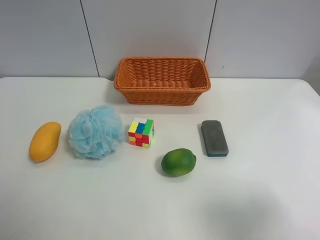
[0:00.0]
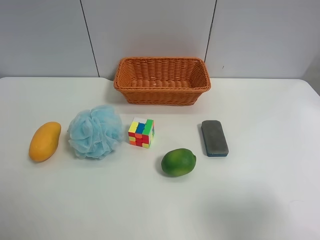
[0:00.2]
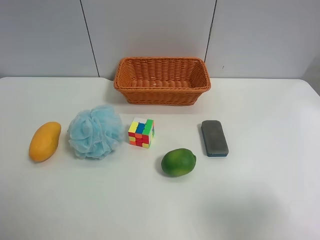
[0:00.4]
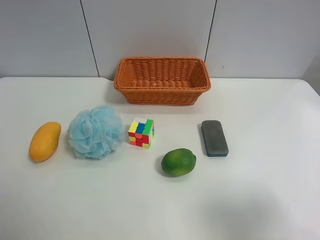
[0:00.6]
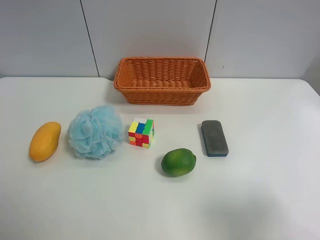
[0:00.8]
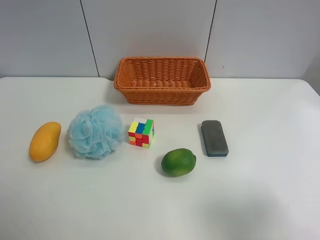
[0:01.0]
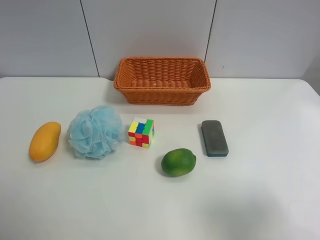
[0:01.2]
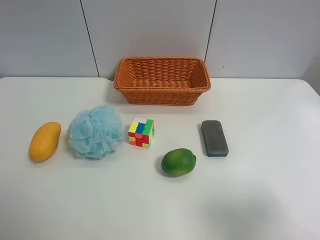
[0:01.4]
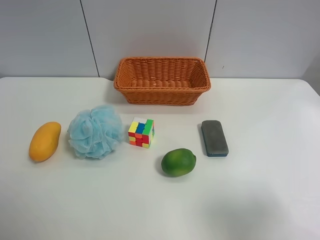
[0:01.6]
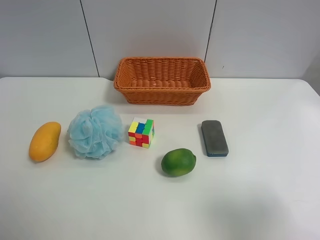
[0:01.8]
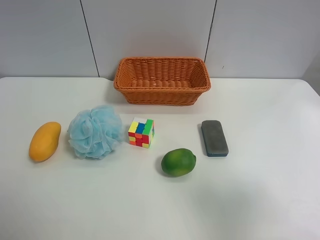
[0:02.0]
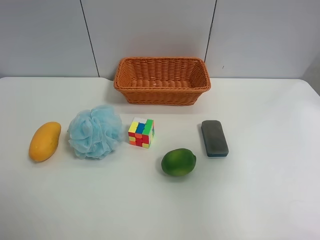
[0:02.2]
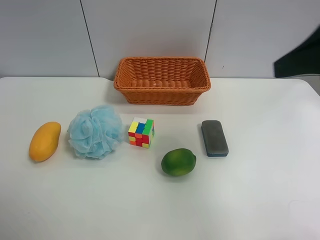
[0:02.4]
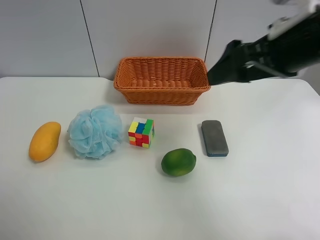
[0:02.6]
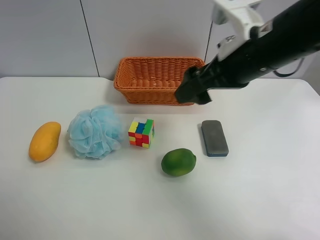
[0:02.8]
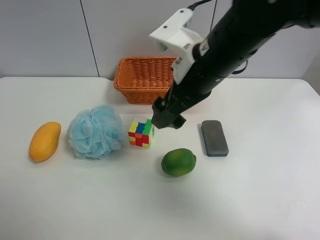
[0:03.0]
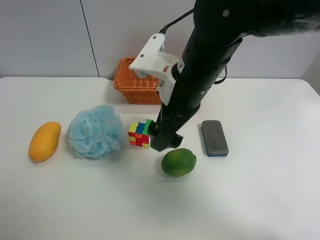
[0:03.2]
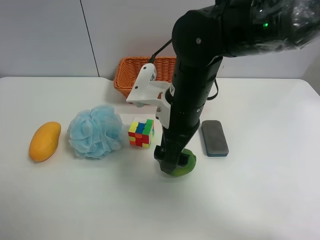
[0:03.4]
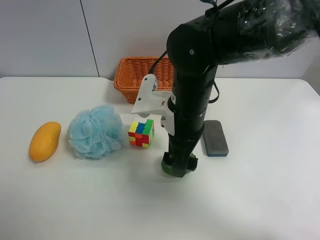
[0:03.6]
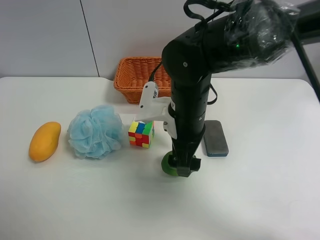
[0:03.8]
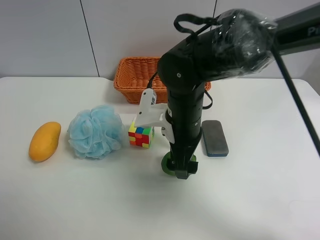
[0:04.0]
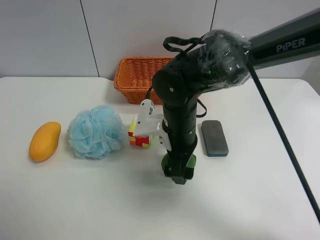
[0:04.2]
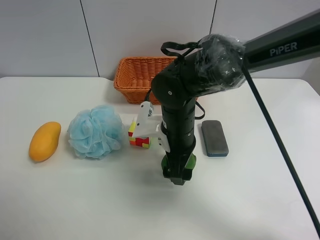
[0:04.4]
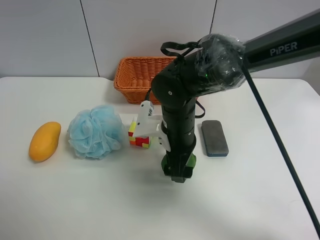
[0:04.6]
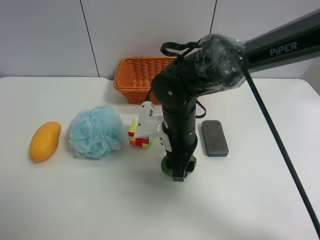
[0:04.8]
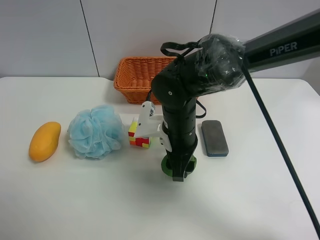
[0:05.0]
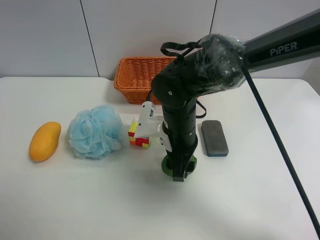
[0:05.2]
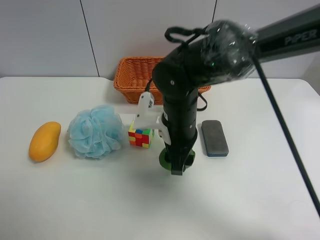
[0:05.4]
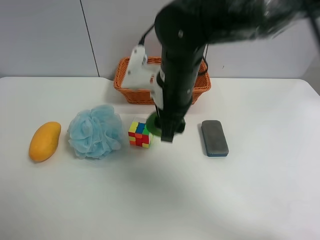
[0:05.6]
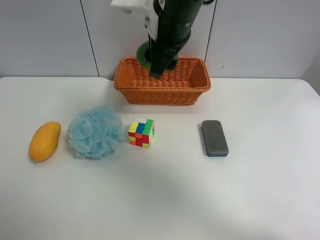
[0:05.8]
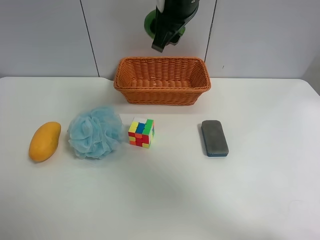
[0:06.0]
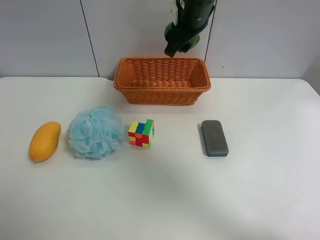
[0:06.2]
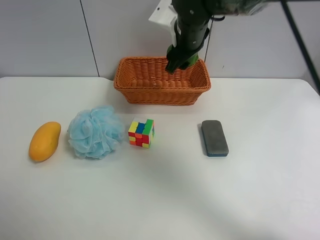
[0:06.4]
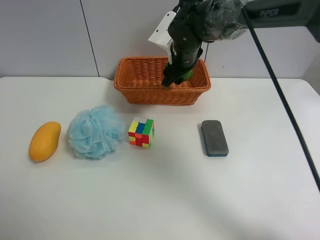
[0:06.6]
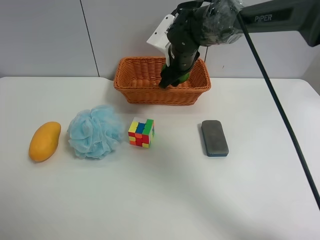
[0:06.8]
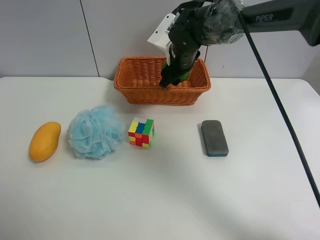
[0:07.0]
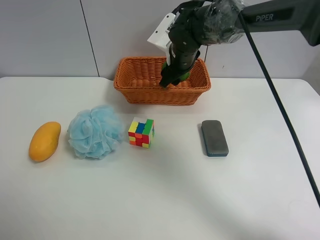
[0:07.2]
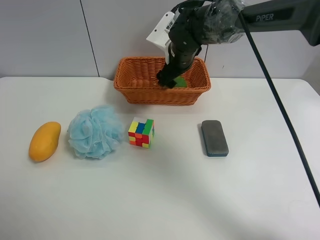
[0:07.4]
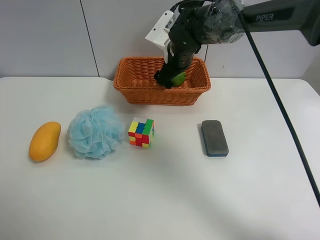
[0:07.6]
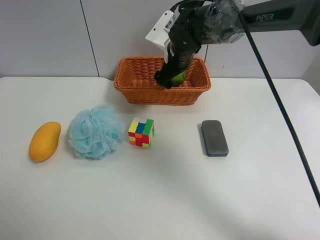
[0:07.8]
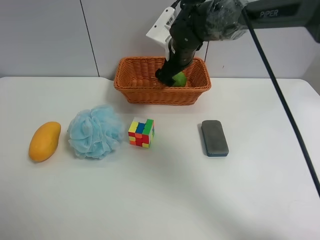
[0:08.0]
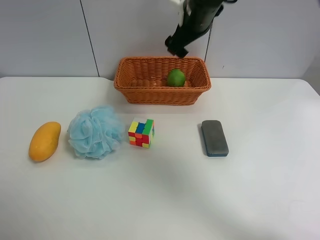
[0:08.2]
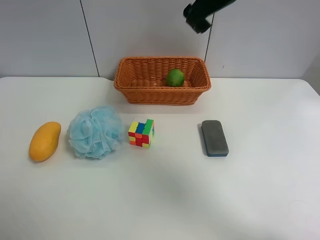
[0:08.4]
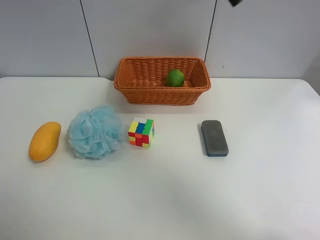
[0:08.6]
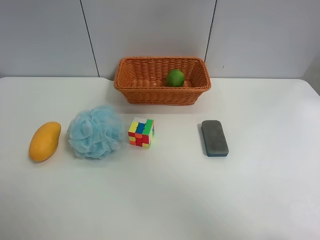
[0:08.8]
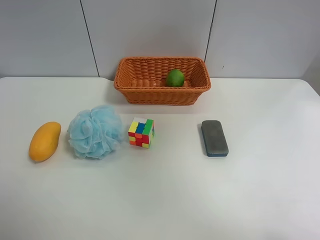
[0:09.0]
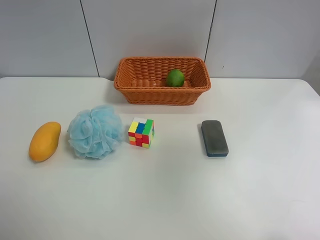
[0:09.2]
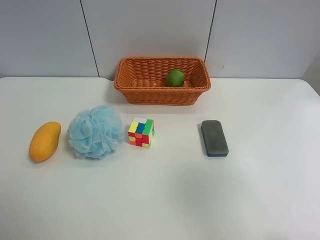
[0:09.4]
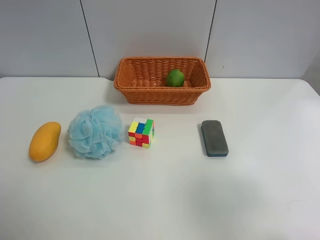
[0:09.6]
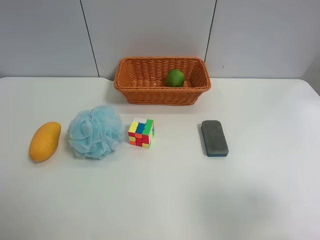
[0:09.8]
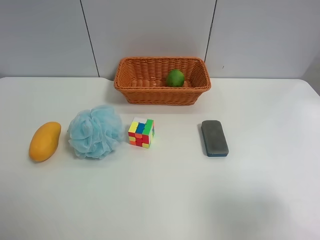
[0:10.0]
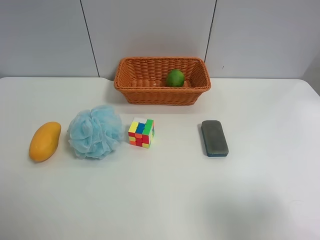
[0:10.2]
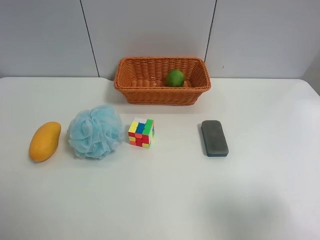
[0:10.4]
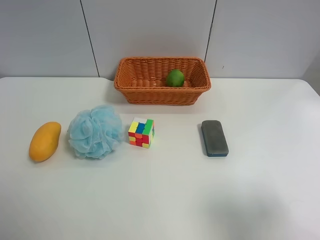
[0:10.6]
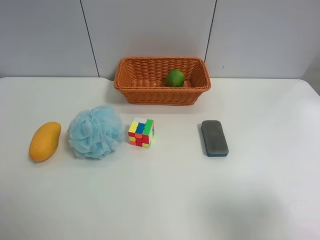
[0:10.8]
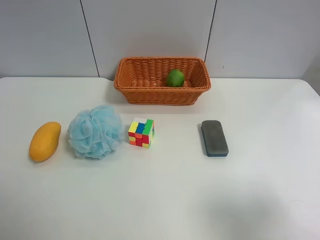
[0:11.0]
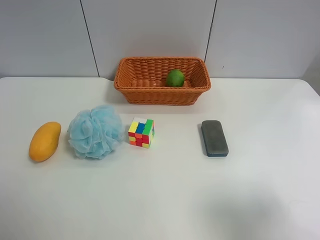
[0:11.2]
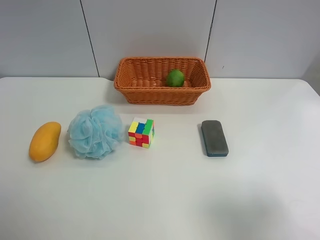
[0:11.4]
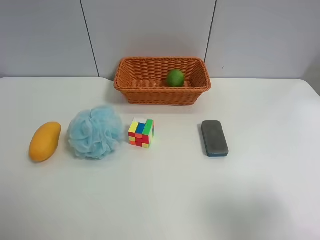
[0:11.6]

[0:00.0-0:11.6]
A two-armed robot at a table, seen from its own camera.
Task of the whole recording: Randomly grab green lemon or mangoes from the table and put them in a basket.
Step, 0:00.0 to 0:05.0: Grasp the Lemon with the right gripper.
Step, 0:05.2 to 0:08.2: Place the Lemon into the basket with the right gripper.
0:00.0 to 0:01.4: Both grippers stay put.
0:01.4 to 0:02.8: The right gripper shifts roughly 30 cm forward and to the left.
0:02.8 to 0:04.4: The right gripper goes roughly 15 cm downward and to the left.
0:04.4 to 0:05.8: The right gripper heads upward, covering about 20 cm, and closes up.
0:05.8 to 0:07.2: The right gripper is displaced downward and forward by roughly 20 cm.
0:07.2 to 0:08.8: The right gripper shifts approximately 35 cm upward, backward and to the right, and opens.
0:08.8 to 0:10.2: The right gripper moves backward, downward and to the right, some 30 cm.
0:10.2 to 0:11.6: The two grippers keep their place.
